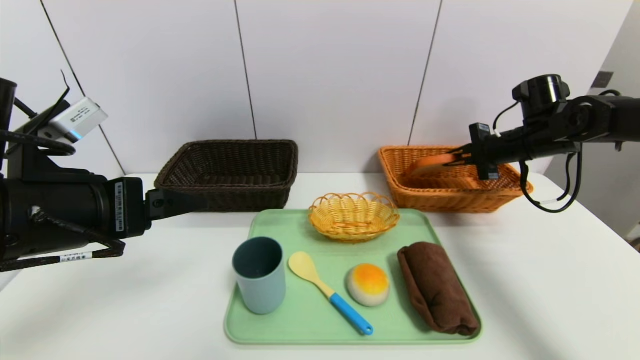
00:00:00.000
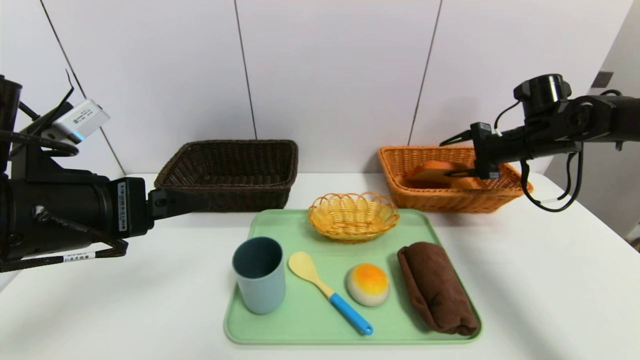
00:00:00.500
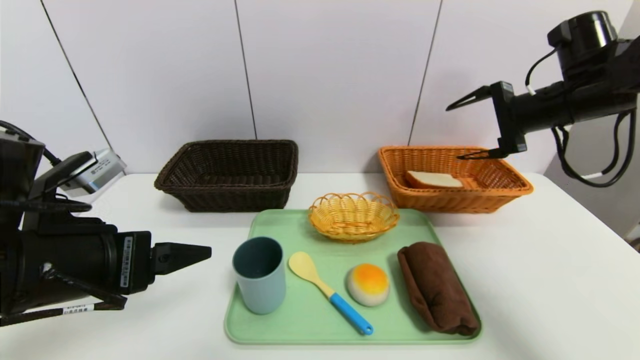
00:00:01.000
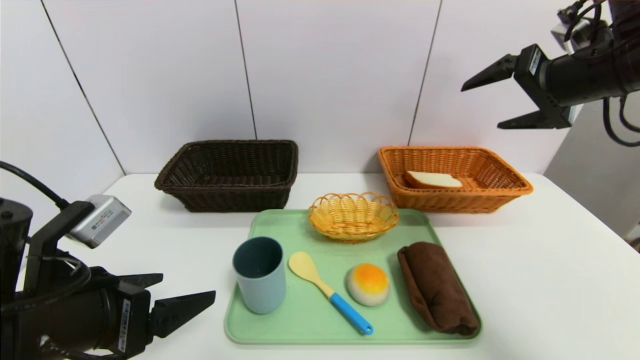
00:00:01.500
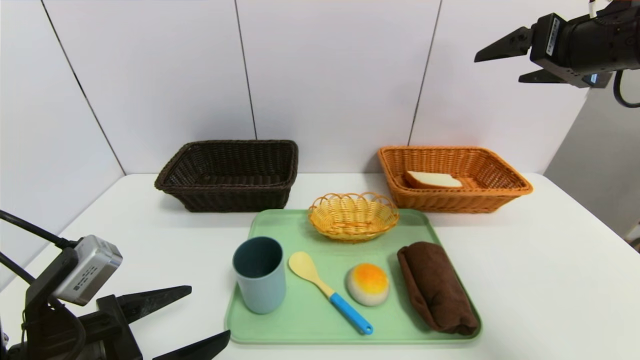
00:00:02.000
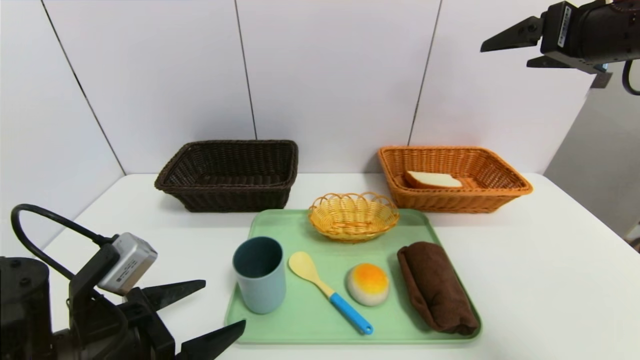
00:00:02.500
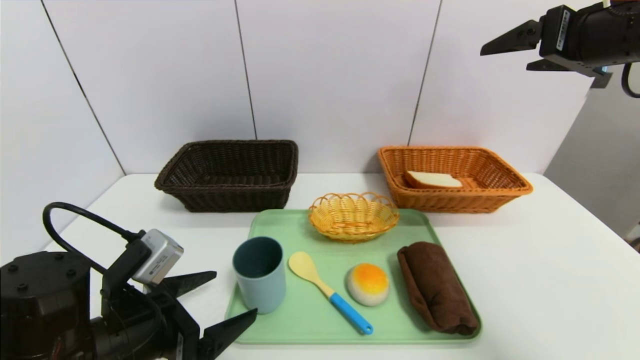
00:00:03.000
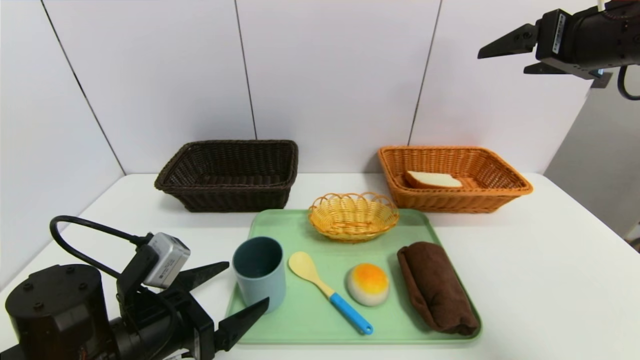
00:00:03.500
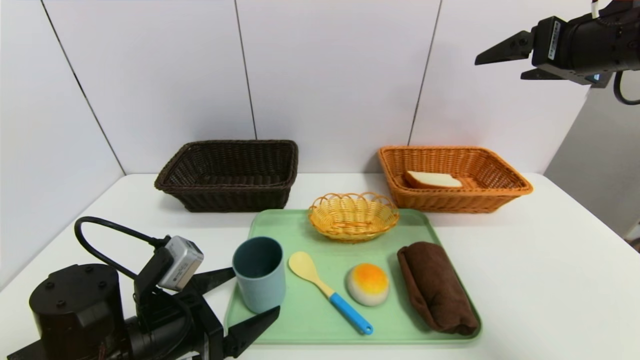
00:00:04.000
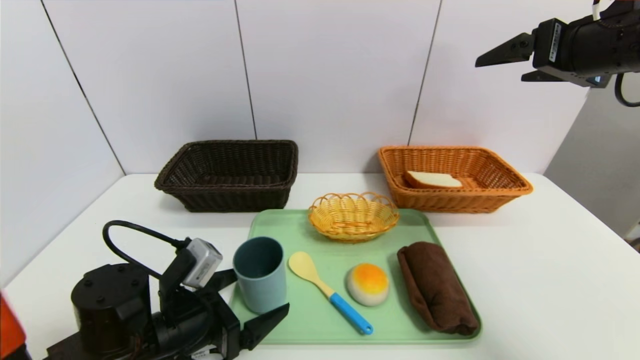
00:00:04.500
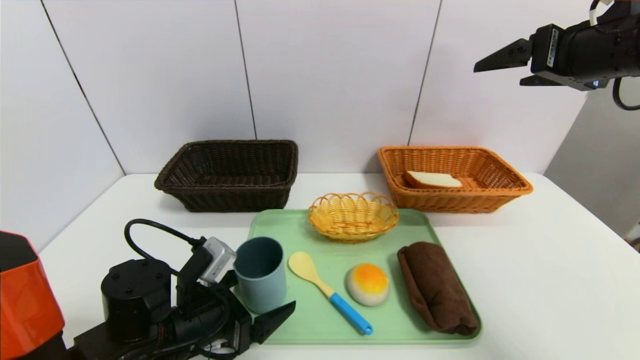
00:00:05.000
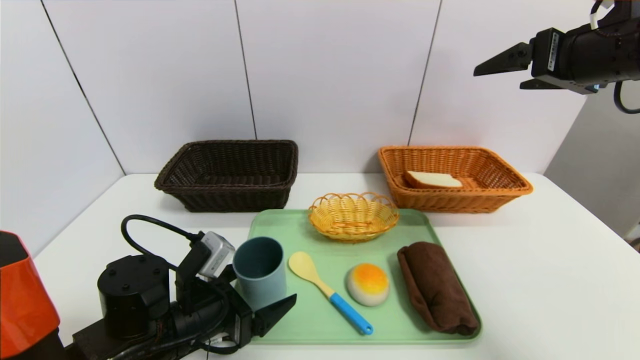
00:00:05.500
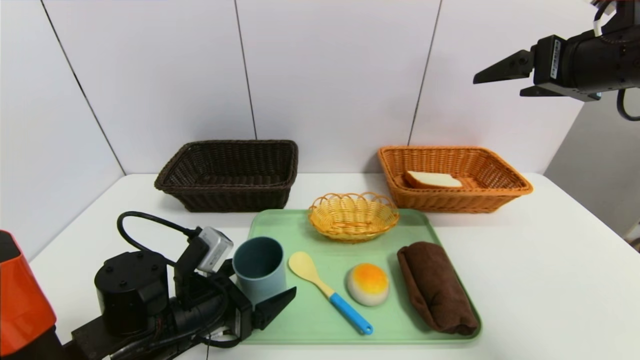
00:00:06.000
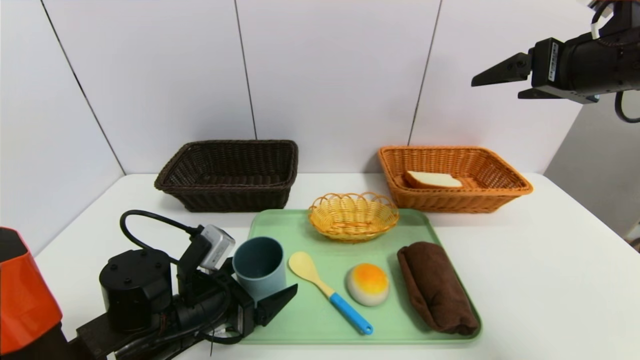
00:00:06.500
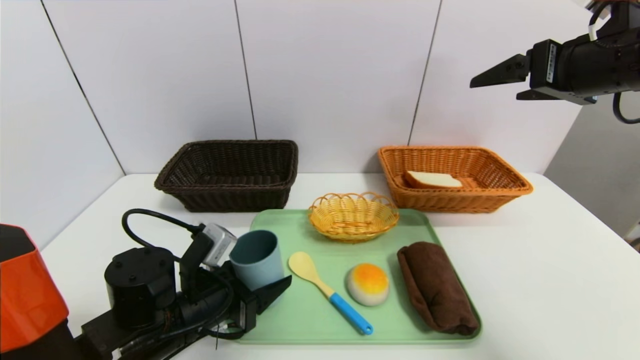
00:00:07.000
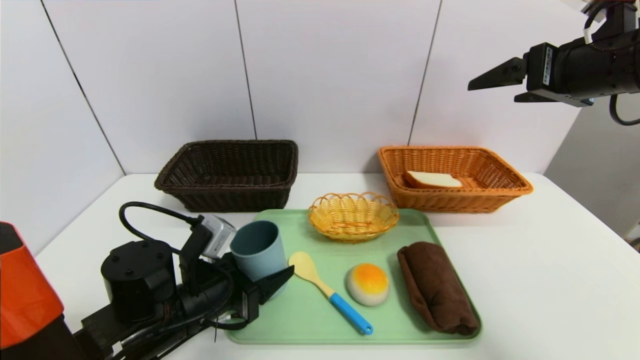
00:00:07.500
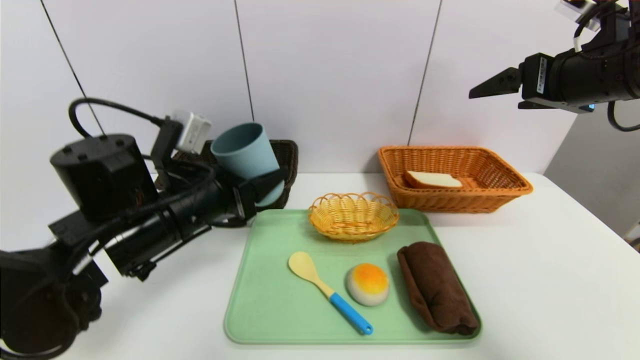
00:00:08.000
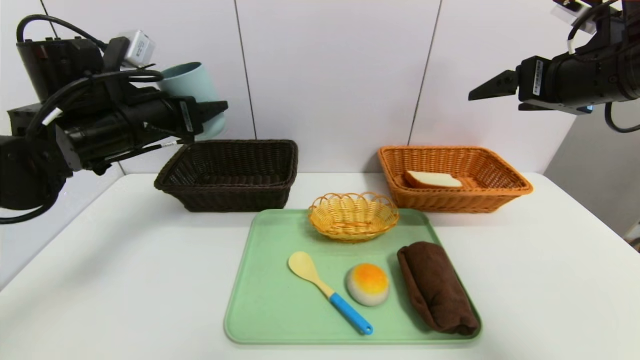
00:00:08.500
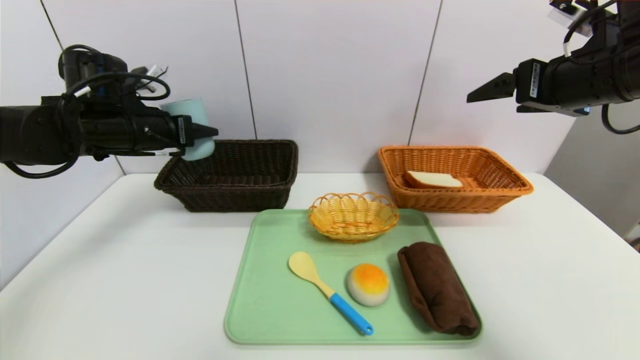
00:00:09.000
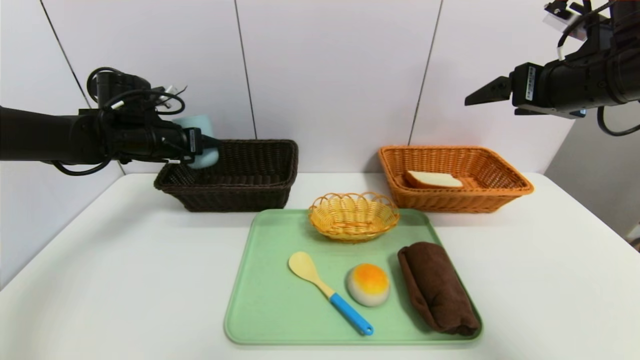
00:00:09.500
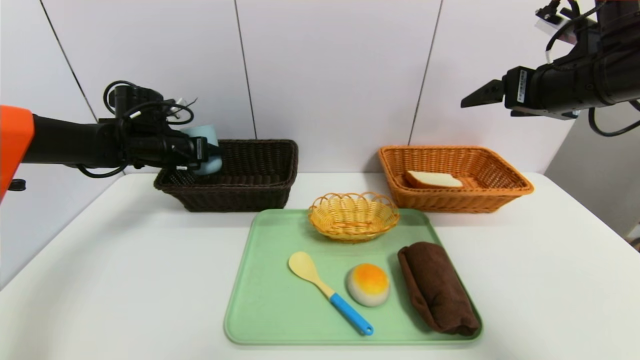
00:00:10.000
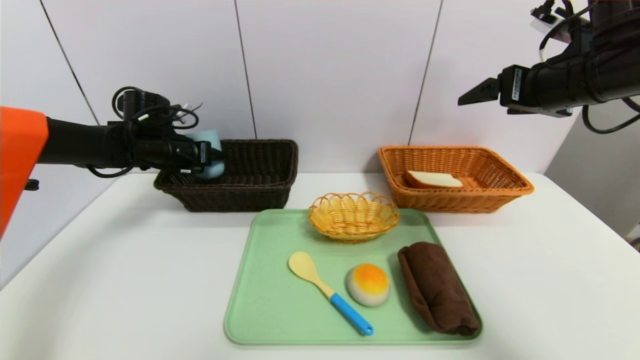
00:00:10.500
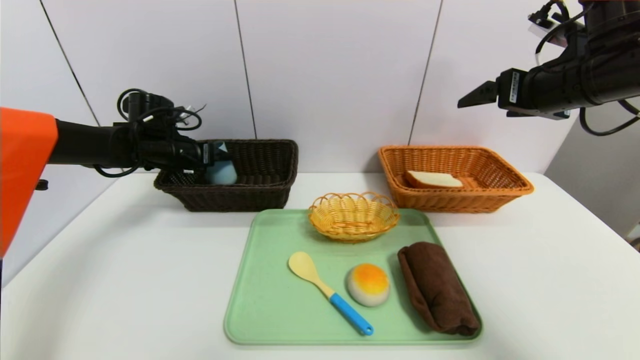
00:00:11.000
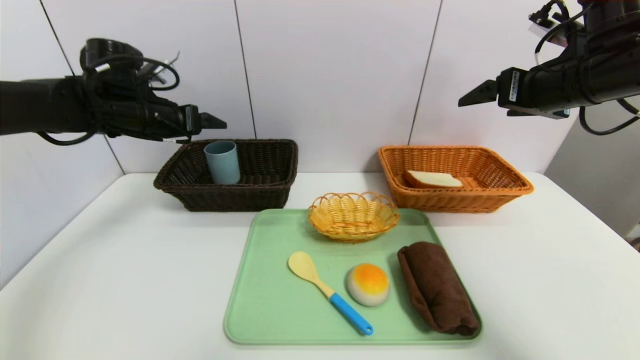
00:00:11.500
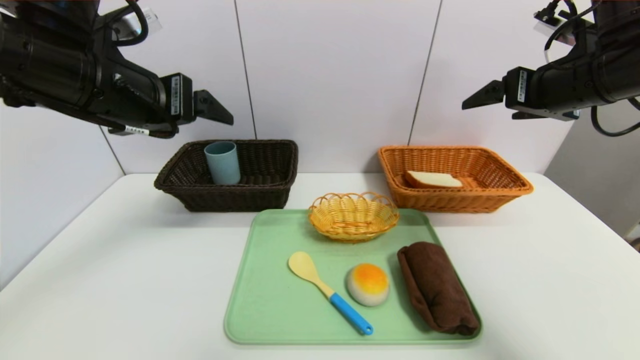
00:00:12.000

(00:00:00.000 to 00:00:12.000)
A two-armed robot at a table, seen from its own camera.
Task of the whole recording: place the food in the right basket with the right gripper, and place the non food items in the left basket with the left gripper.
Step, 00:00:01.500 - 00:00:11.500: Grasp the blue cup and put it in the left basket.
00:00:00.000 - 00:00:02.000: The left gripper heads downward and backward, covering roughly 15 cm. Meanwhile the right gripper moves upward and backward, roughly 20 cm, and opens.
00:00:02.000 - 00:00:04.000: The left gripper moves forward and downward, roughly 10 cm.
00:00:04.000 - 00:00:06.000: There are only small adjustments of the grippers.
00:00:06.000 - 00:00:08.000: The left gripper is displaced upward by about 15 cm.
00:00:08.000 - 00:00:10.000: The left gripper travels forward and to the left by approximately 20 cm.
00:00:10.000 - 00:00:12.000: The left gripper moves backward, upward and to the right, about 25 cm.

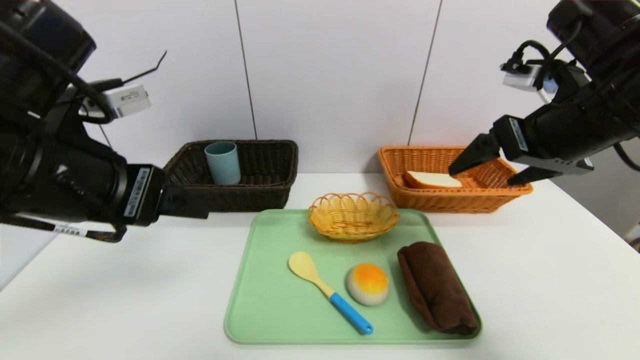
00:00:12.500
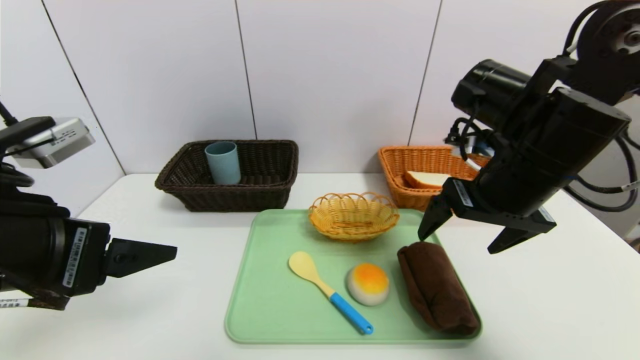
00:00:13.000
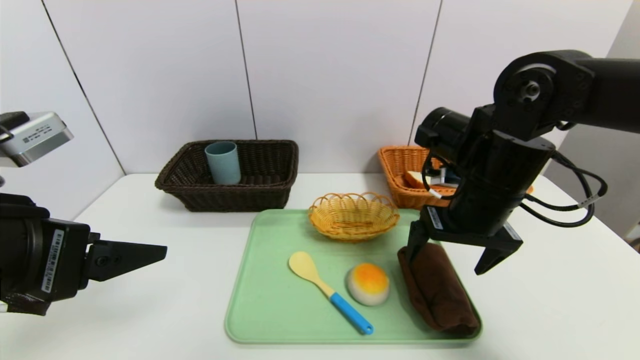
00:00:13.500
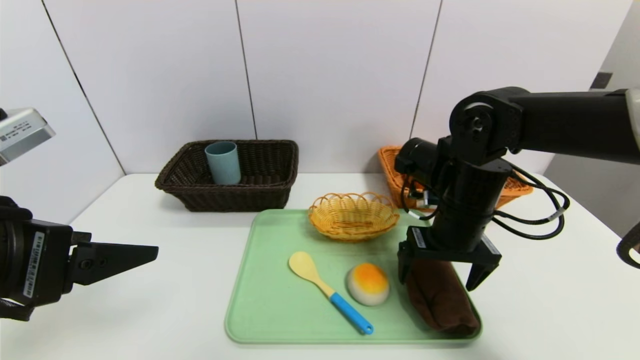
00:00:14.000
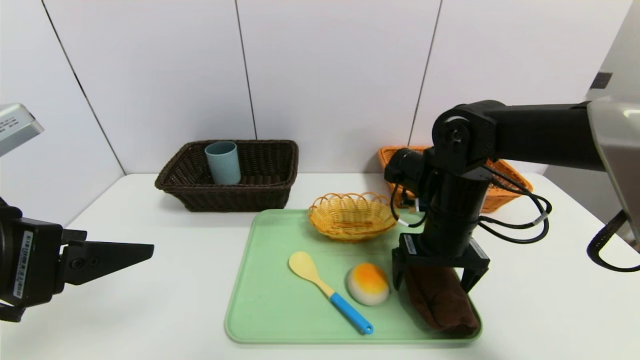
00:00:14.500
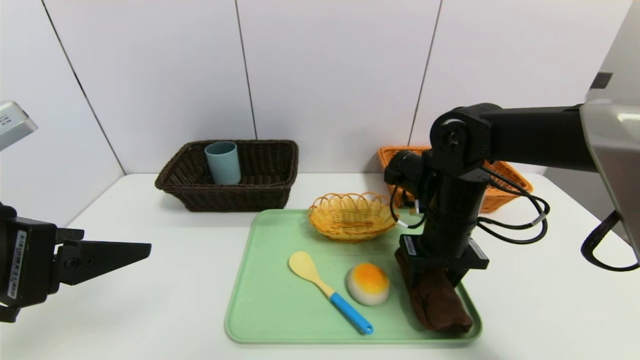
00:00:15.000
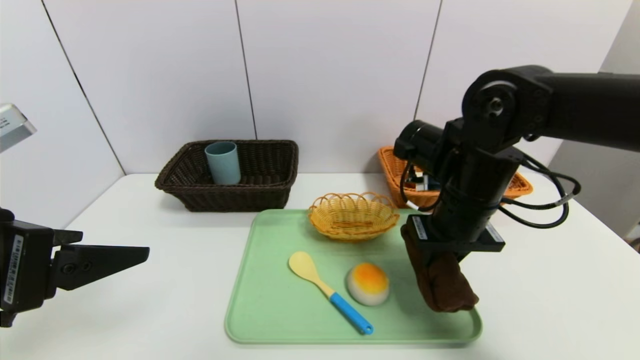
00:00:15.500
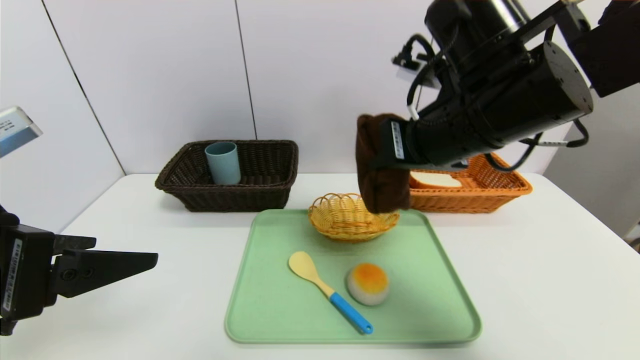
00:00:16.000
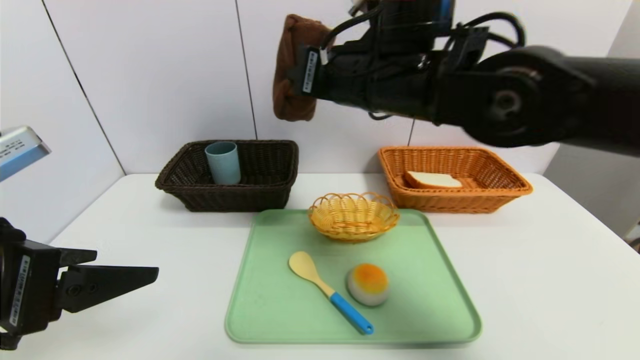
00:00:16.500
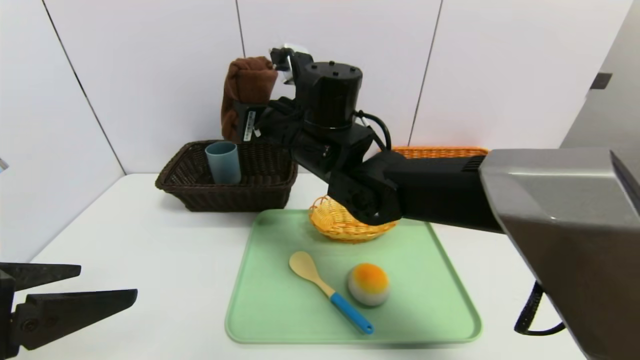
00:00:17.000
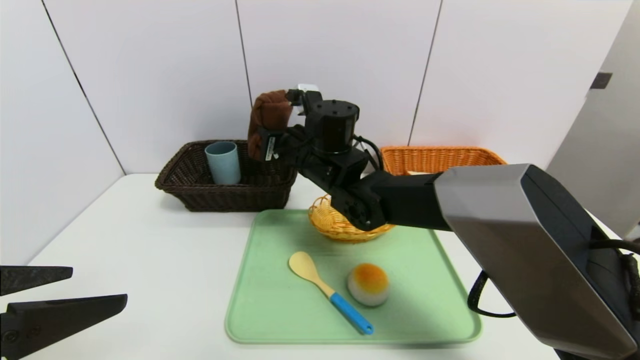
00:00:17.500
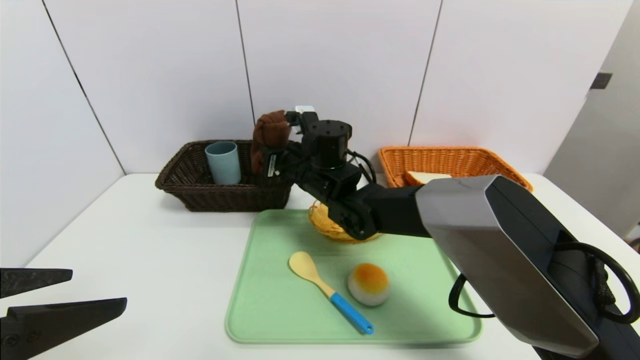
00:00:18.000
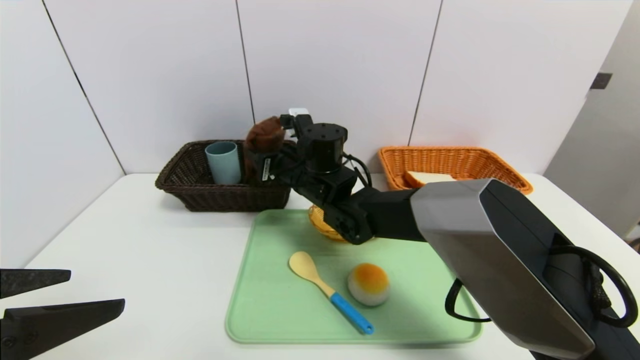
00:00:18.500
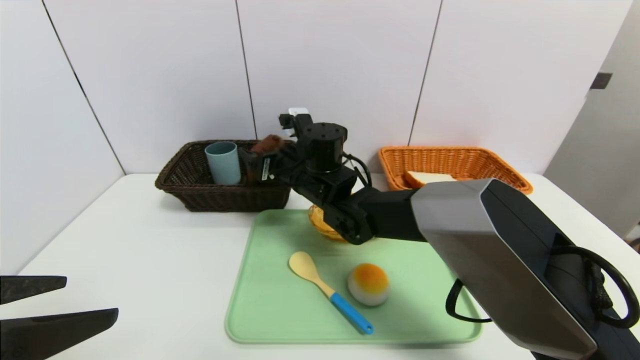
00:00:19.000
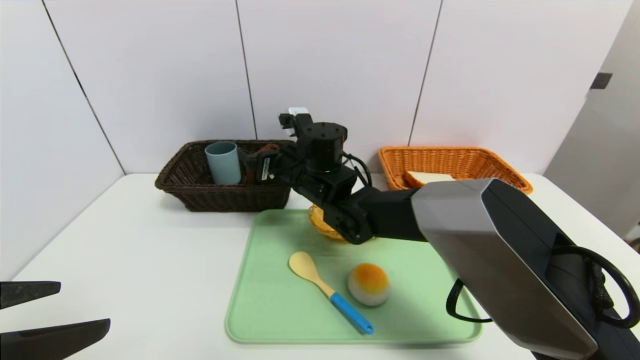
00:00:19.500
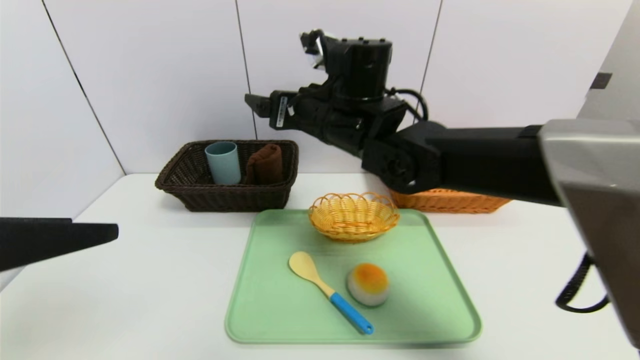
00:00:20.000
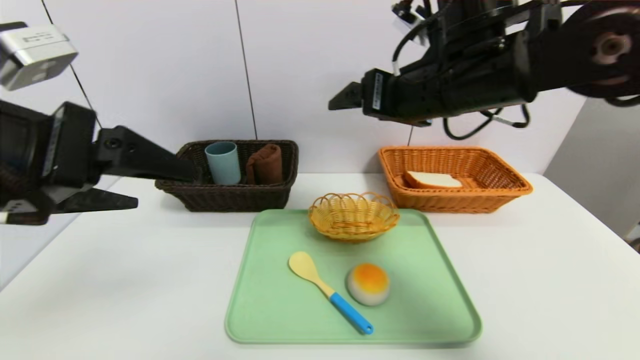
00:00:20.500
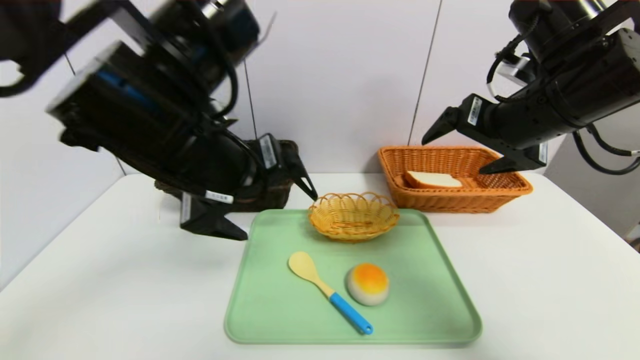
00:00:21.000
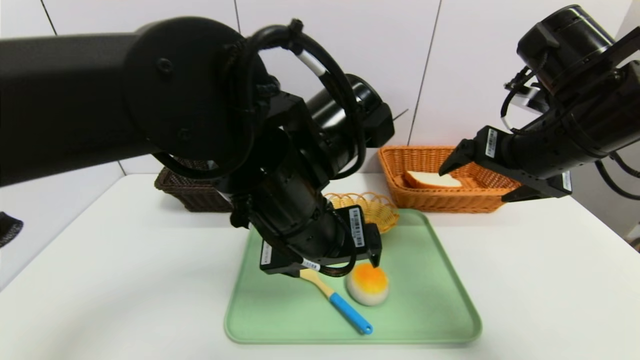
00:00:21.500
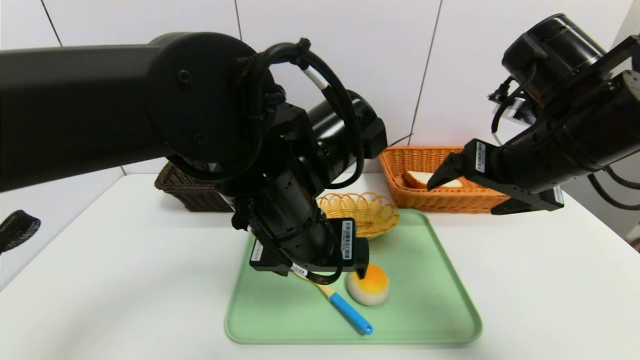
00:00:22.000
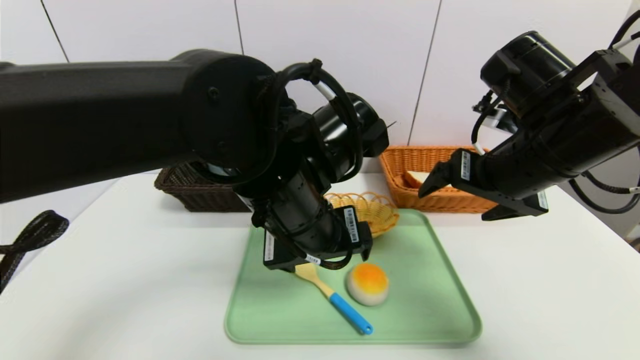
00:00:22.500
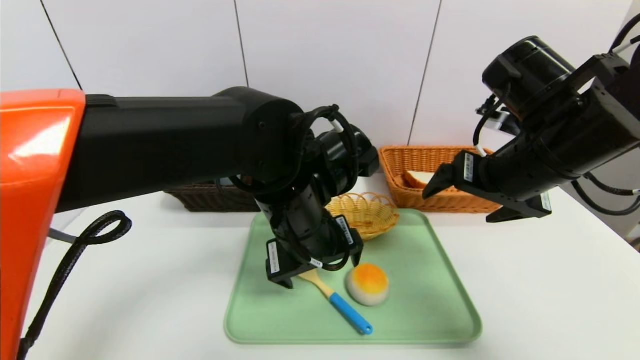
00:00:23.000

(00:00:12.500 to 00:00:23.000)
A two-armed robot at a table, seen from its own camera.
Task of the whole recording: place the food in the right basket with the right gripper, and place the non food items in the left basket with the left gripper.
Step, 00:00:12.500 - 00:00:19.500: Grasp the brown towel and put it in the left basket.
00:00:12.500 - 00:00:14.500: The right gripper is displaced downward and to the left by some 15 cm, while the left gripper goes about 5 cm backward.
00:00:14.500 - 00:00:16.500: The right gripper travels upward and to the left by roughly 20 cm, and closes up.
00:00:16.500 - 00:00:19.000: The right gripper travels downward, forward and to the left by some 20 cm, and opens up.
00:00:19.000 - 00:00:21.000: The left gripper heads to the right and forward, covering approximately 20 cm, while the right gripper moves to the right, upward and backward, about 30 cm.
00:00:21.000 - 00:00:23.000: The left gripper shifts roughly 15 cm downward and to the right.
